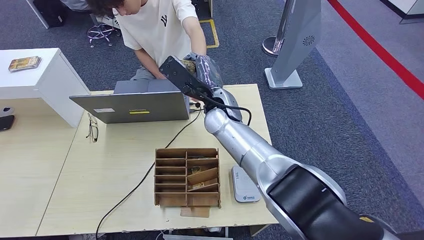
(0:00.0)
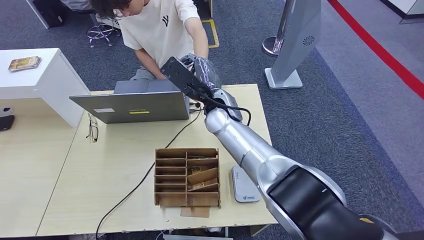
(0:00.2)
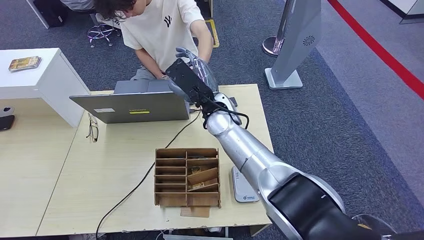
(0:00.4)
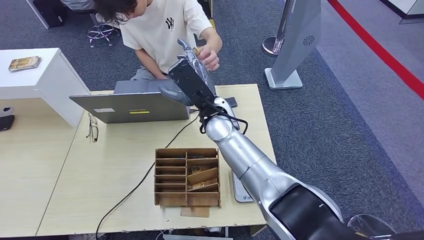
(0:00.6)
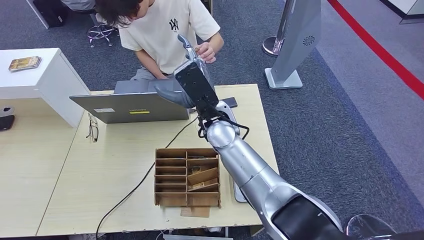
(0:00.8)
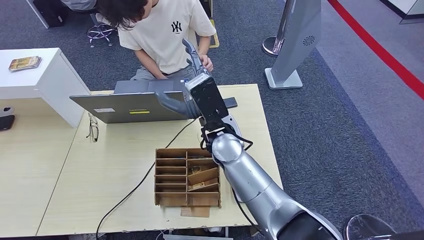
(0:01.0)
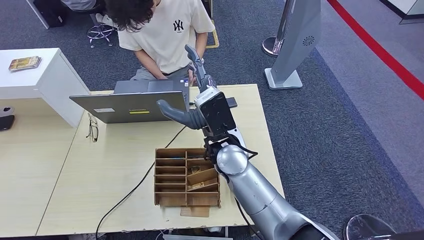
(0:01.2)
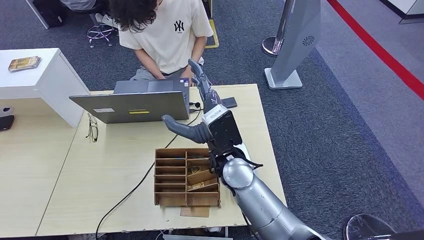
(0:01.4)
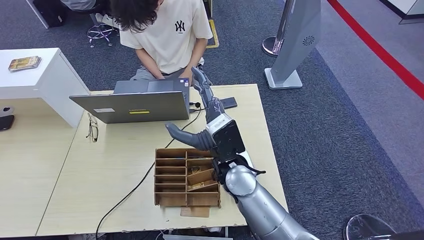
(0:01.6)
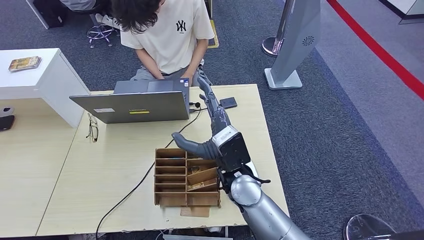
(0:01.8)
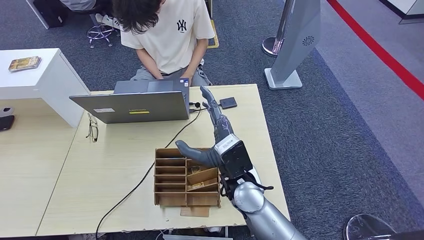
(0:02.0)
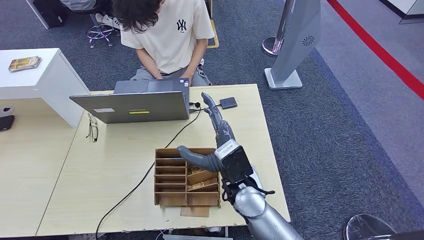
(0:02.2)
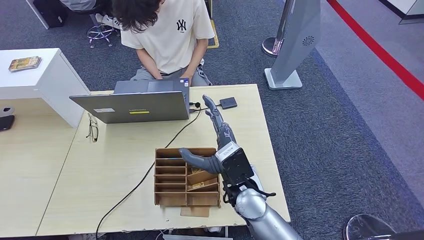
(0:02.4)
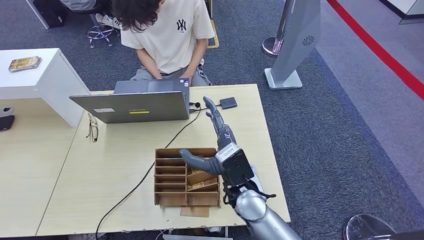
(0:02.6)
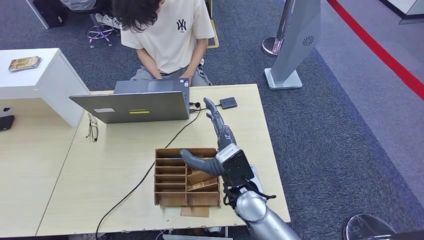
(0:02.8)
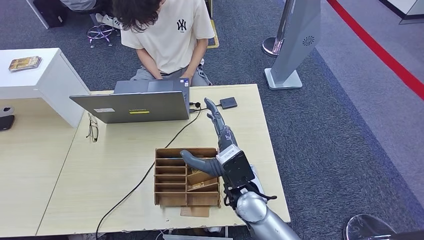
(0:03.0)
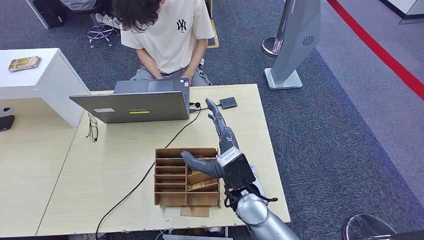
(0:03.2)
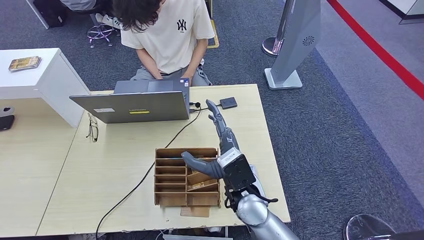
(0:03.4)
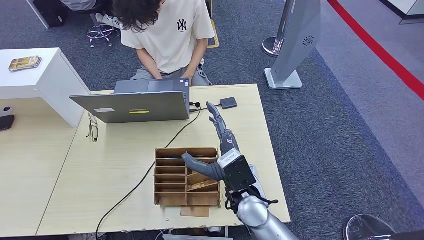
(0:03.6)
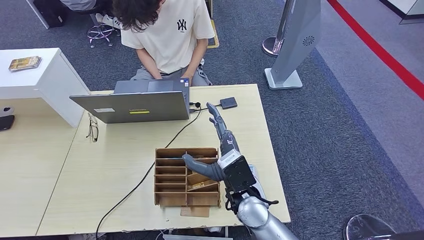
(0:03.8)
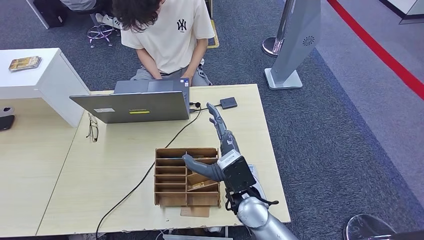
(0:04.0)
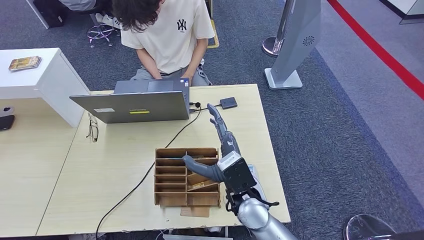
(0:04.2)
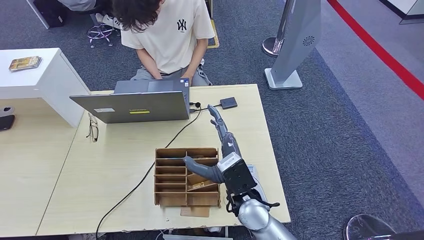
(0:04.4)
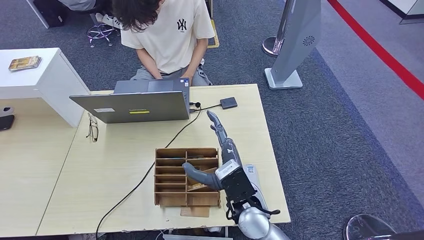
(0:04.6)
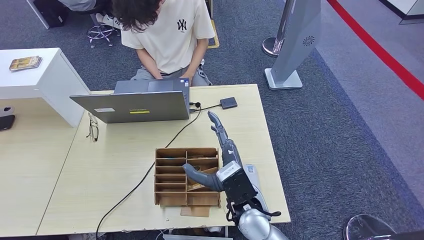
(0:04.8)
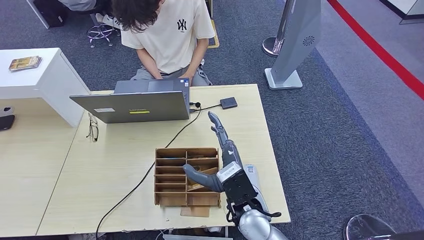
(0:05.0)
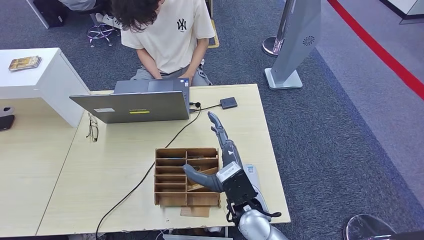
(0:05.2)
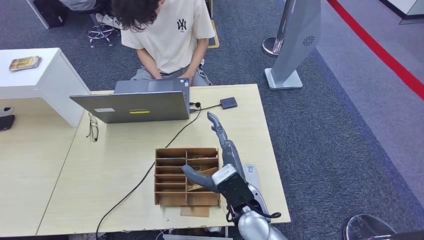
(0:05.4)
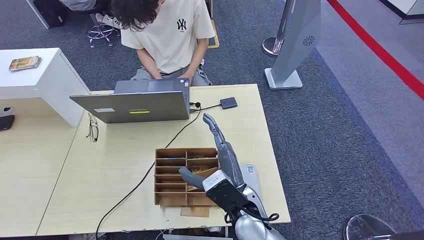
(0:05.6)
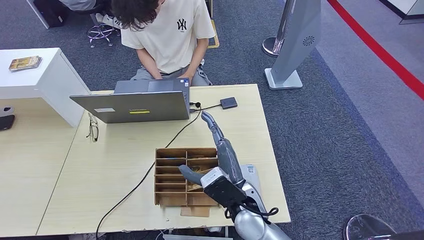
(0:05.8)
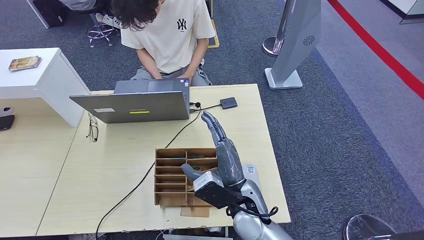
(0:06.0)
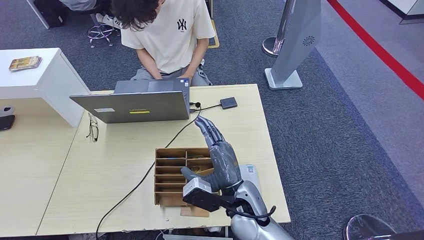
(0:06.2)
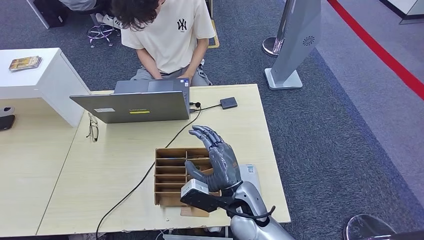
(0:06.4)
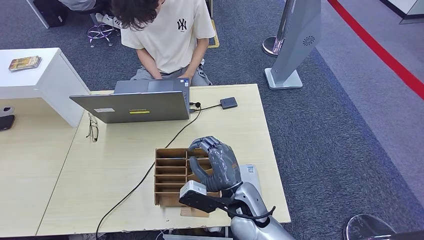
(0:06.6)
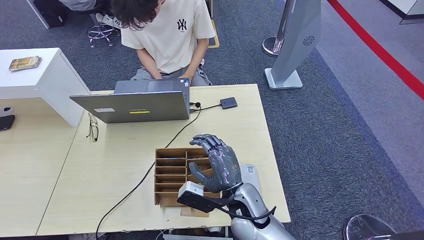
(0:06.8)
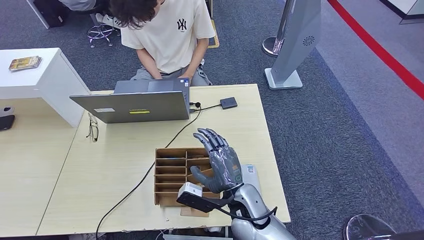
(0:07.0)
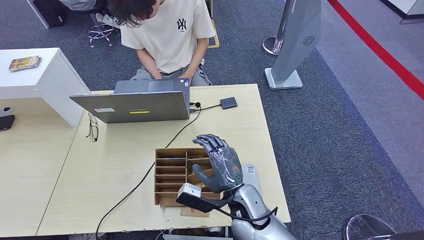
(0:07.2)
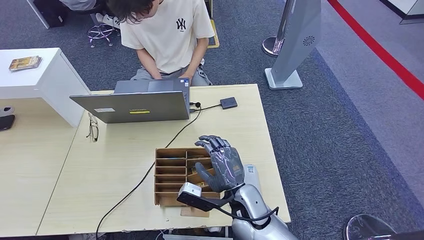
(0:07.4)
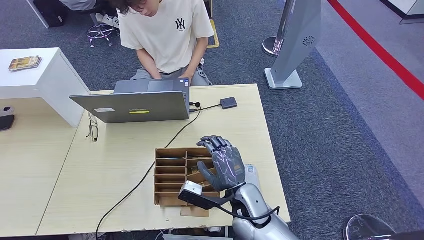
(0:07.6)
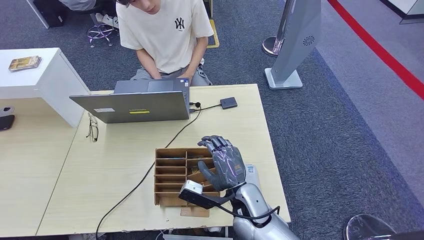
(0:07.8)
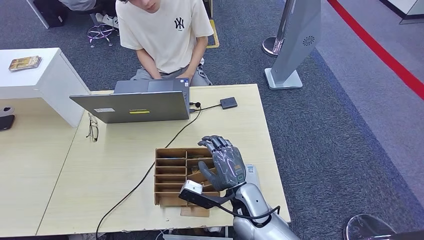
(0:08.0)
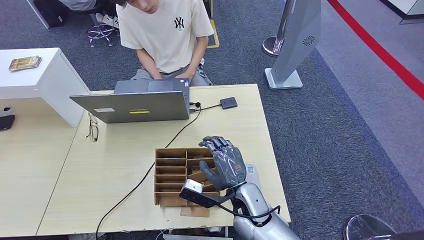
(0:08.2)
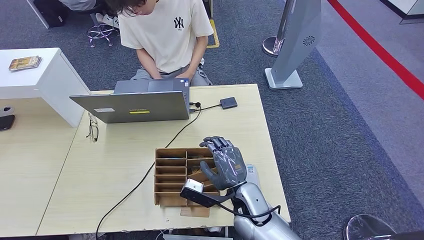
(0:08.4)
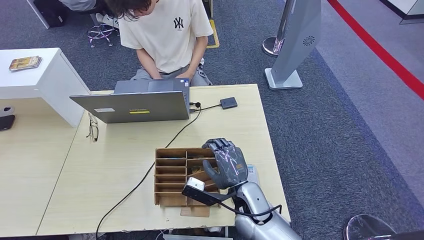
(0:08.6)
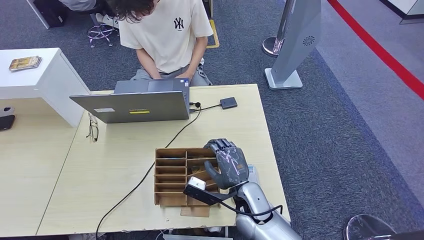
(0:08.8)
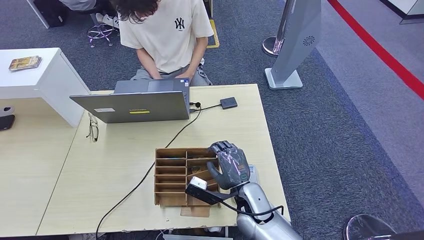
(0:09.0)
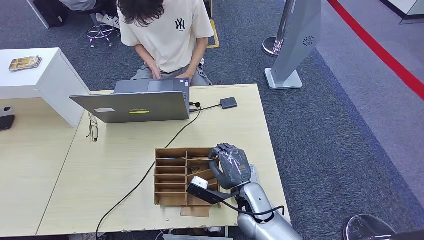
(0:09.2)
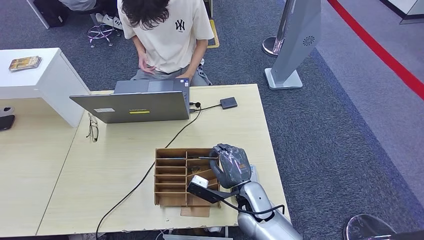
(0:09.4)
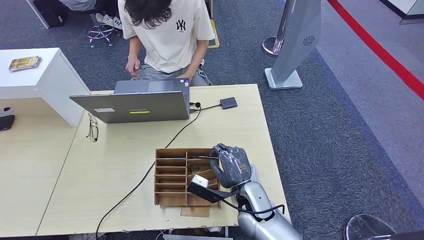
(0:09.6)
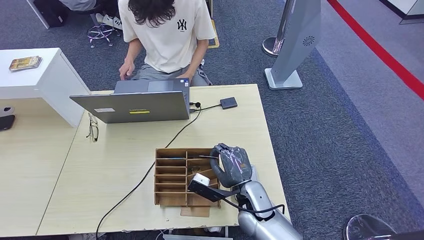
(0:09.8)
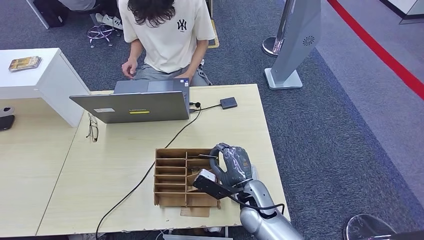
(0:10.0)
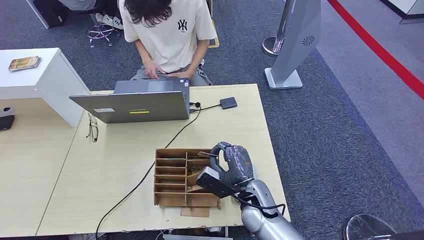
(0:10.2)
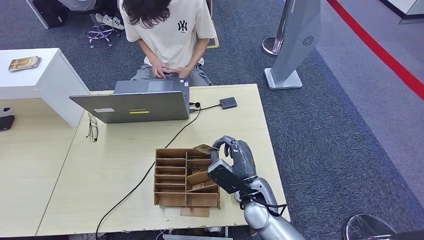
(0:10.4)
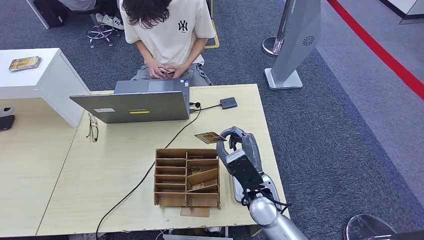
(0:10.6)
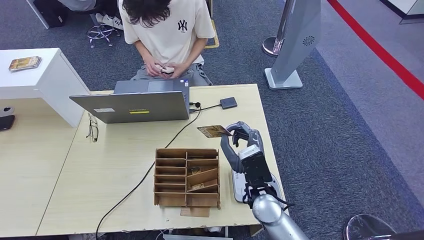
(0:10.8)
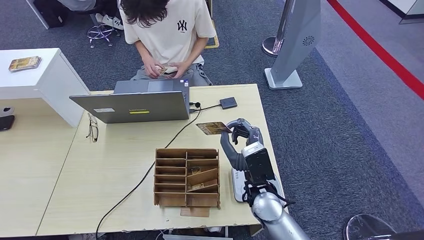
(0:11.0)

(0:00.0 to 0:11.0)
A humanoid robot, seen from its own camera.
0:00.0 - 0:01.6: The right hand travels backward by about 10 cm.
0:01.6 - 0:03.2: The right hand travels downward by about 5 cm.
0:03.2 - 0:04.8: The hands make only small movements.
0:07.8 - 0:09.4: The hands stay close to where they were, moving slightly.
0:09.4 - 0:11.0: The right hand travels upward by roughly 5 cm.

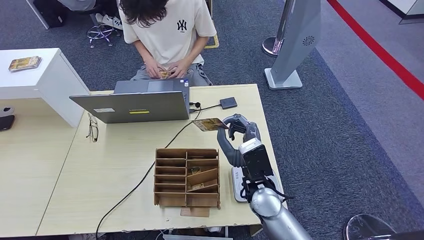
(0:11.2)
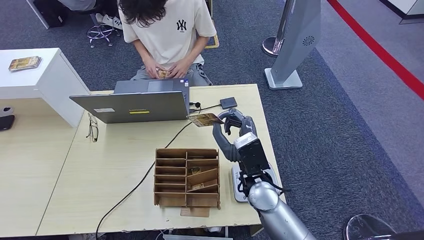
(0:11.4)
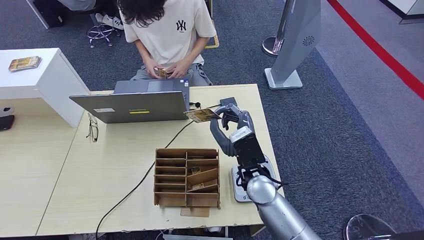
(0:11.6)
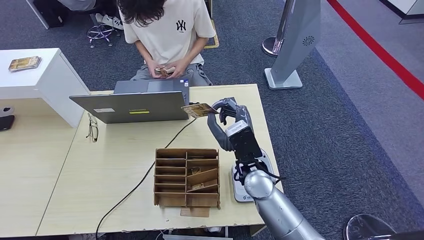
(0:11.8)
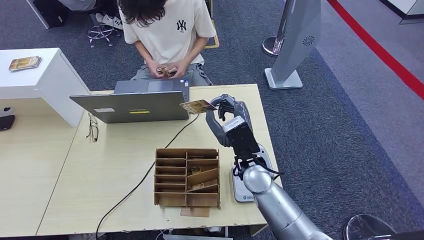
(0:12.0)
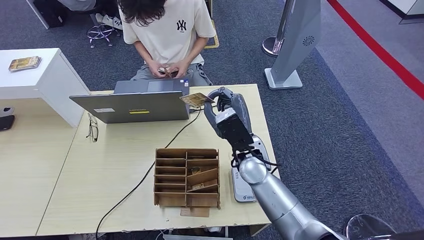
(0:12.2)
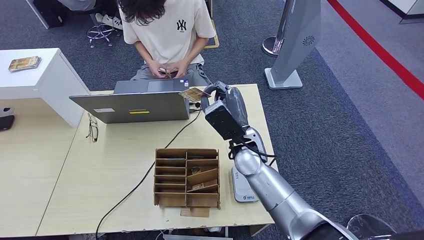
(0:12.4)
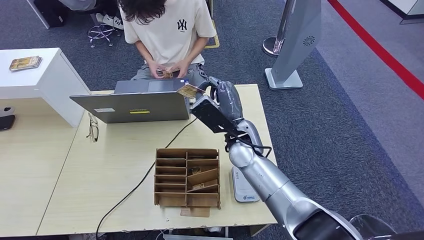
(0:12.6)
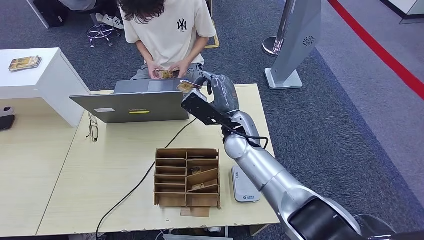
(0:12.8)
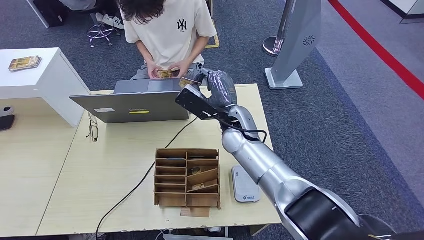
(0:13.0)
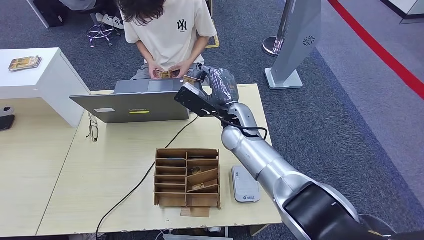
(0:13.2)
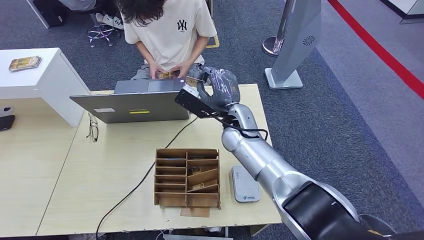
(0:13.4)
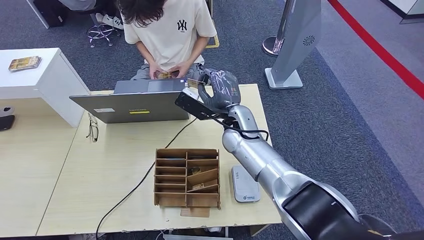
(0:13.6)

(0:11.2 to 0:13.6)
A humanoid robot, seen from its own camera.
Step, 0:11.6 - 0:13.6: Hand the room key to the person.
0:11.2 - 0:12.4: The right hand is displaced forward by roughly 10 cm.
0:12.4 - 0:13.6: The right hand travels forward by approximately 5 cm.

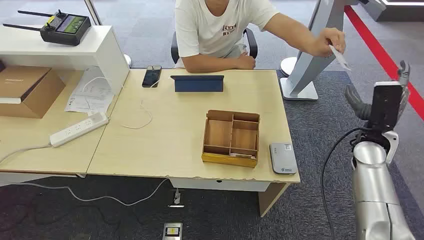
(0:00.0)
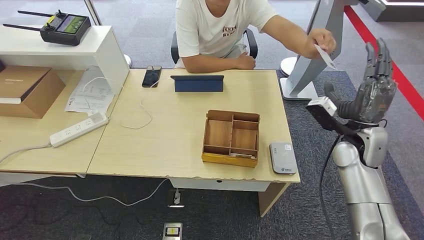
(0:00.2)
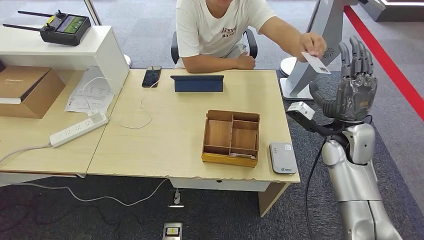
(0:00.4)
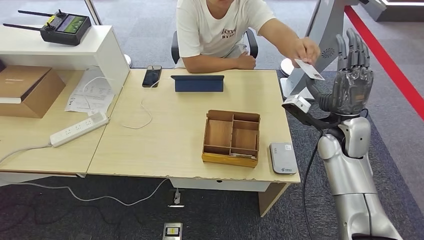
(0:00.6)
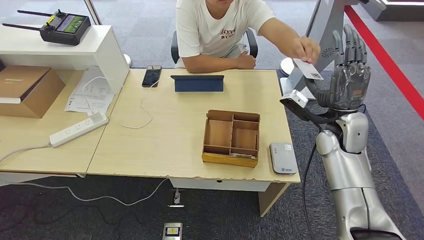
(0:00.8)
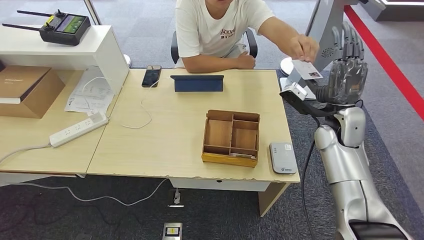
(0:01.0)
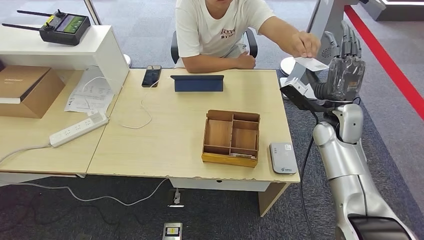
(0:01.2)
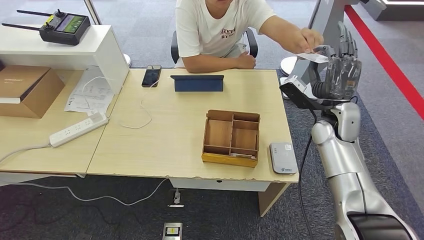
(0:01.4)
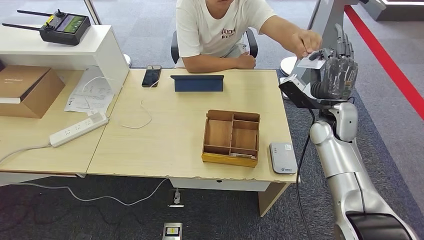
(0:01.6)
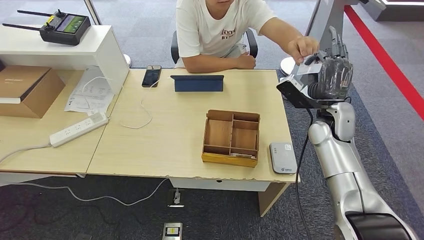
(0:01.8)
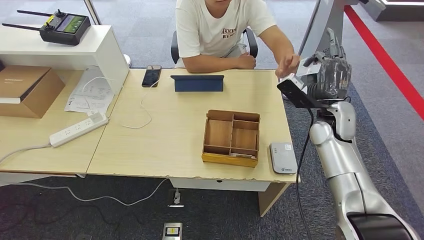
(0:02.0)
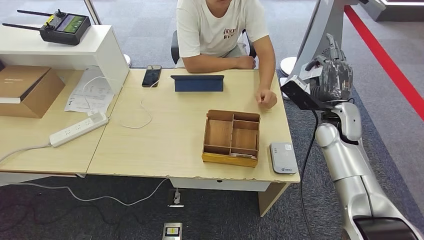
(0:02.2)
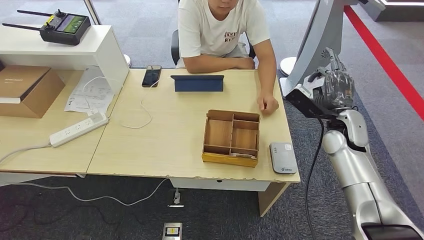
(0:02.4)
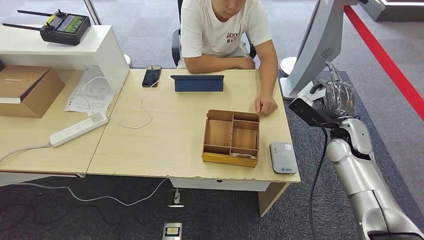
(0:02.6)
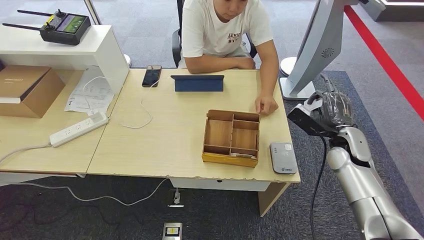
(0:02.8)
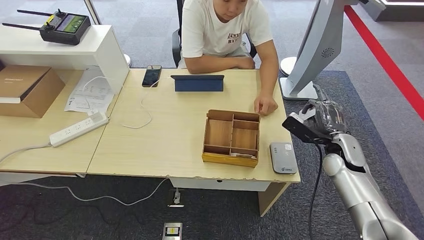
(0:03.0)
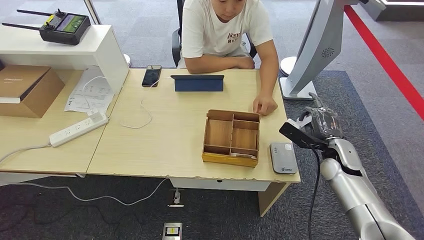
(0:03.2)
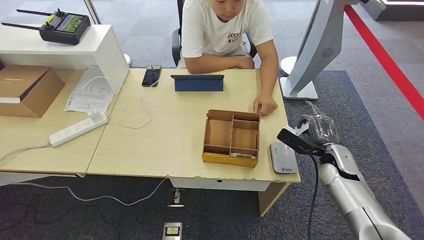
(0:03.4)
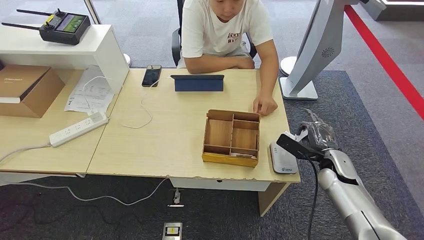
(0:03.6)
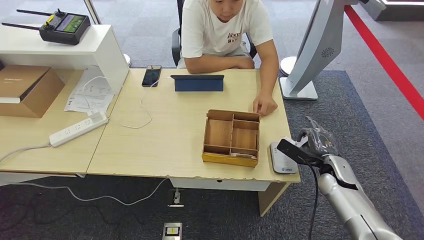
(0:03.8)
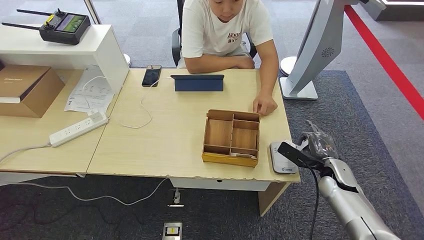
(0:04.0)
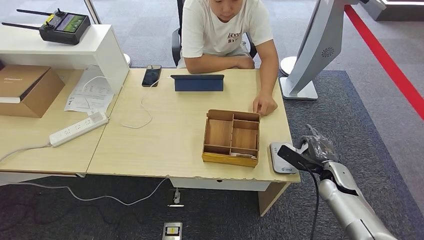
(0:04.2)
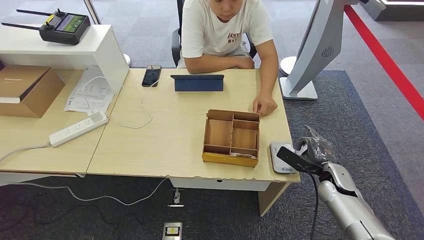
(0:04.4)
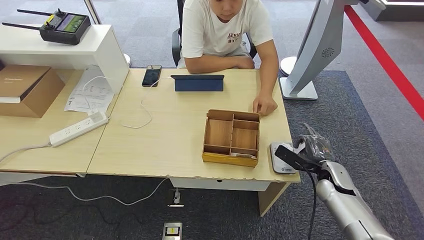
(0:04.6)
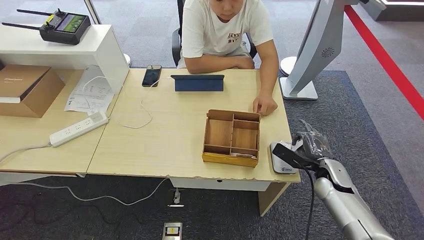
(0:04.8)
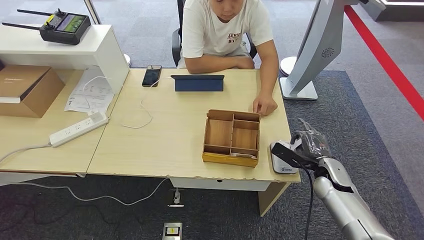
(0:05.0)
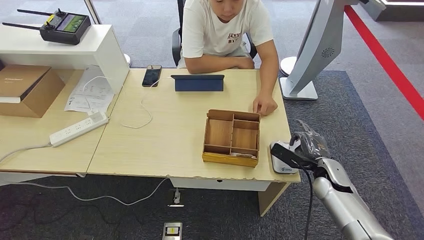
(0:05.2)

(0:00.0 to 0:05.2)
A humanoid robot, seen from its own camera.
Step, 0:00.0 - 0:03.0: Take the ID card from the person's hand.
0:01.8 - 0:03.4: The right hand travels downward, backward and to the right by some 15 cm.
